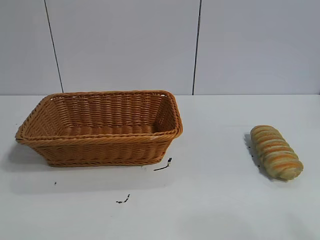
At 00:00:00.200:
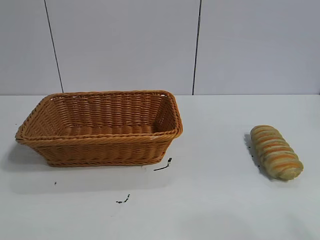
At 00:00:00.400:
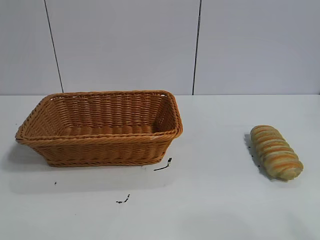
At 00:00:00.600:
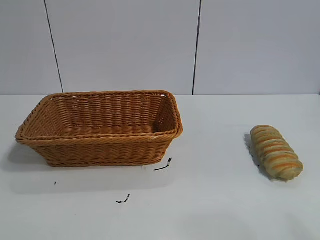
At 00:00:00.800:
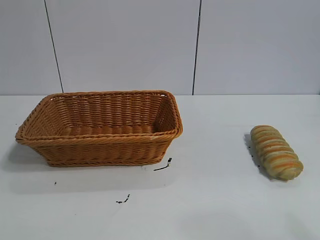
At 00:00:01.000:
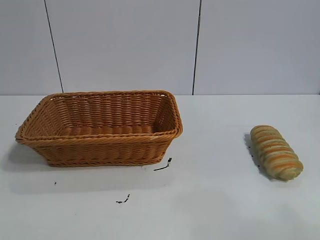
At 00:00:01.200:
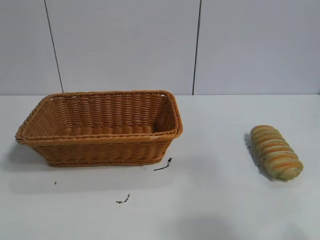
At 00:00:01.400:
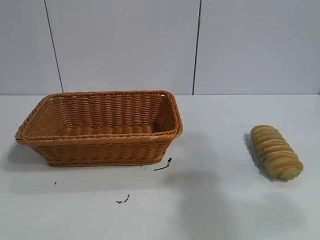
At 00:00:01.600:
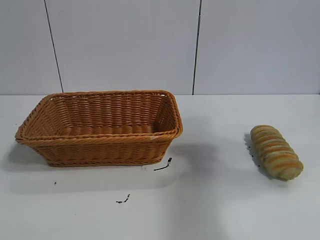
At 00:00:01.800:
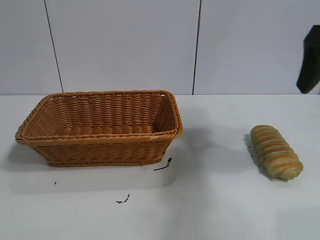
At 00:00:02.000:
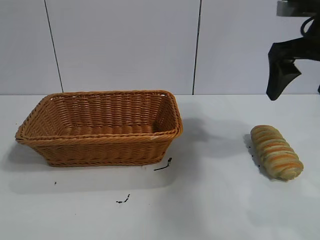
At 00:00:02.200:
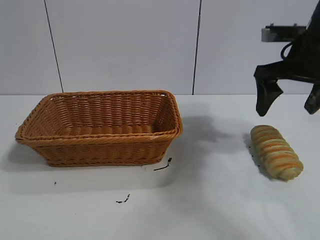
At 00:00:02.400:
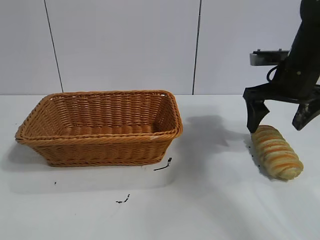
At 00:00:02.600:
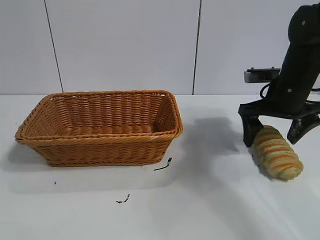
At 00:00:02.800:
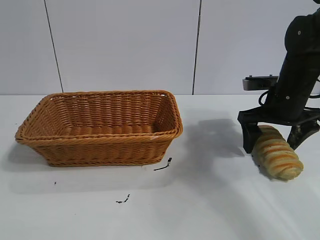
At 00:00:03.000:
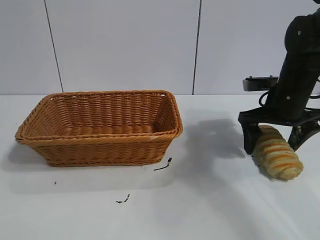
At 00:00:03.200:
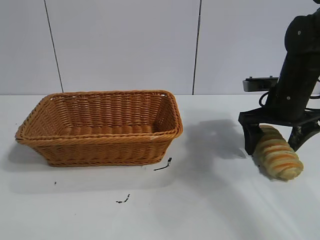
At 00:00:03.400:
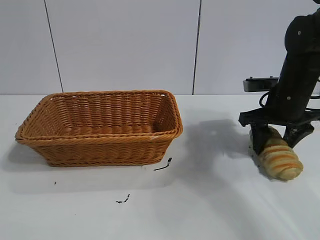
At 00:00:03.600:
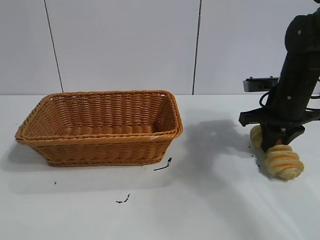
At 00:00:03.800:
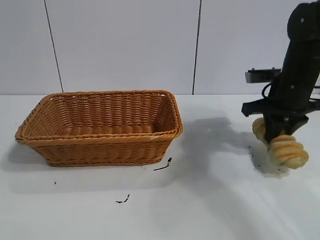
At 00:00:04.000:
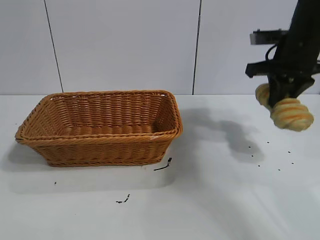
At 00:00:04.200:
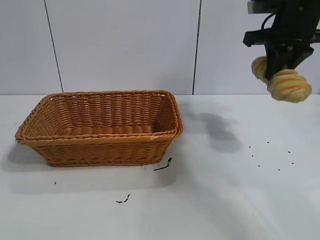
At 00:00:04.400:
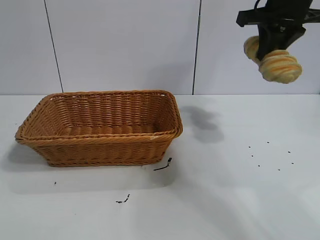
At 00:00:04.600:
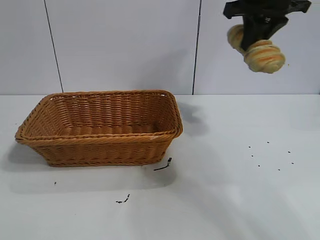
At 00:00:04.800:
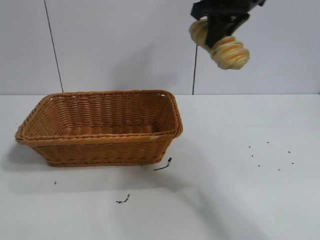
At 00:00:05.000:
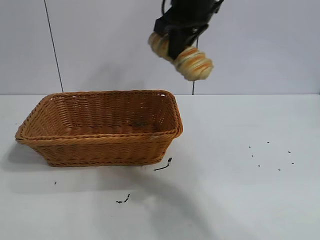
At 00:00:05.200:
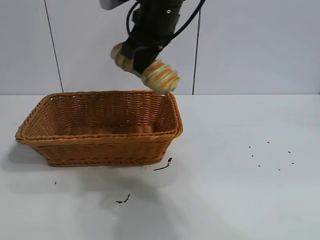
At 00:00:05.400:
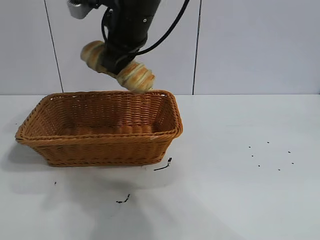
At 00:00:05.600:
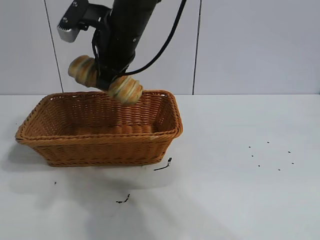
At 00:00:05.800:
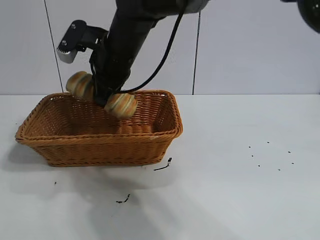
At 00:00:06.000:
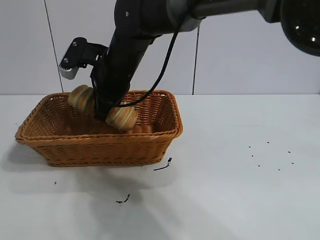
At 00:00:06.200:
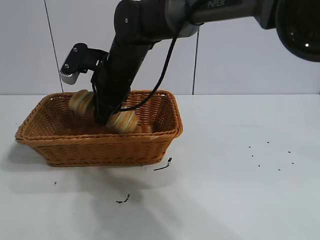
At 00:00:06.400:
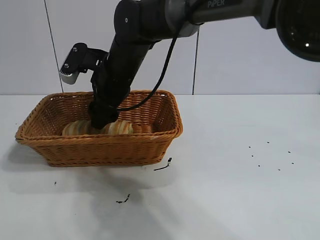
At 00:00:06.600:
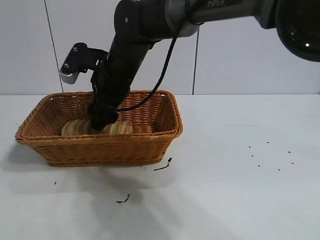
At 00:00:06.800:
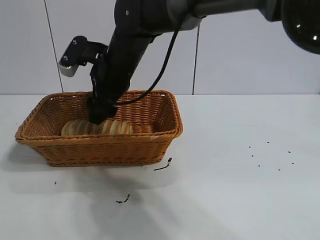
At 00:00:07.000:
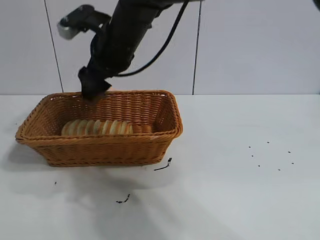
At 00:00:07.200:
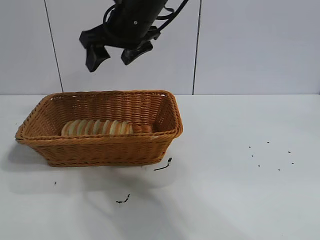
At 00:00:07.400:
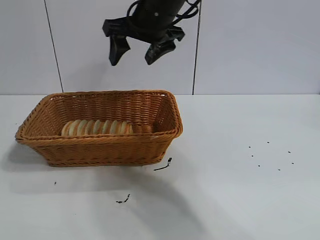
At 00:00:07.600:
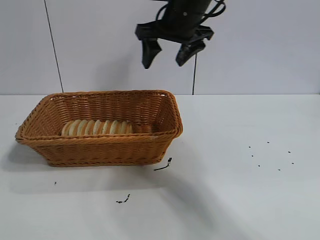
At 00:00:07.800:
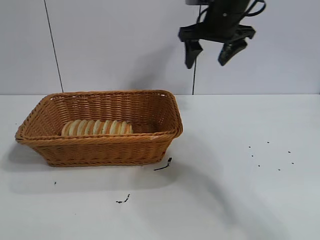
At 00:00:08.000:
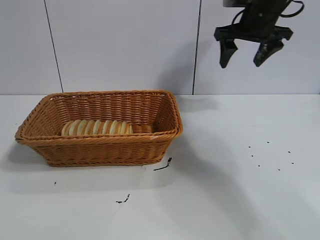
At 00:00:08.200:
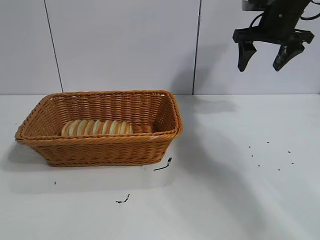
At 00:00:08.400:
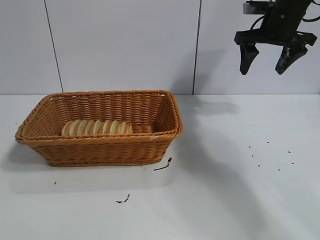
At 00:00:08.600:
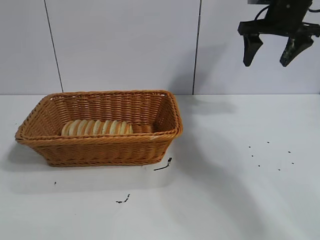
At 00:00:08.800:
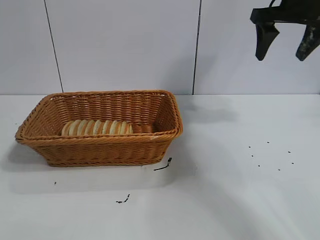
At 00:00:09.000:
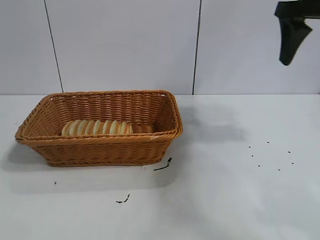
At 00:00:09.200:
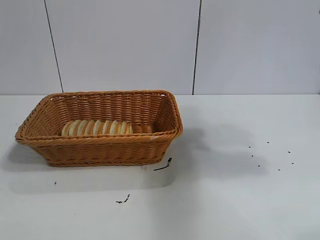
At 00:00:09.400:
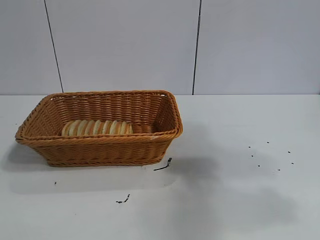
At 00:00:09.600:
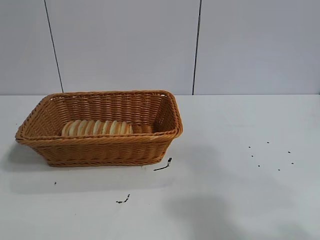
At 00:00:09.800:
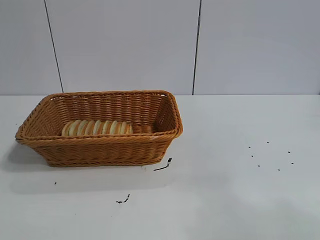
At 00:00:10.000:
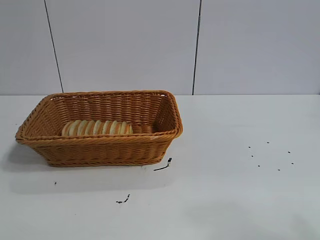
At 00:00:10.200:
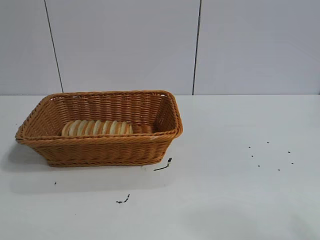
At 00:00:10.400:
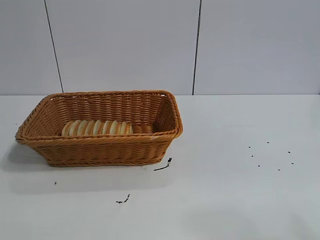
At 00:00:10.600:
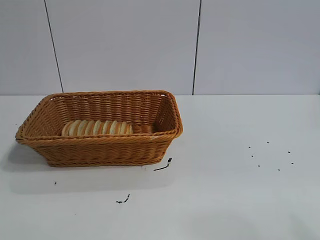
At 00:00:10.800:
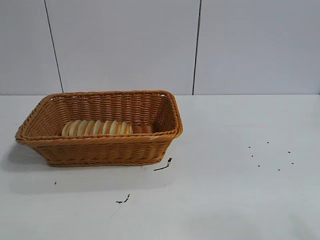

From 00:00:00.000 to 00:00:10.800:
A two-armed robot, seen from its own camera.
Task of the whole recording: pick up the long bread and put it into the basket.
Step, from 00:00:01.800 to 00:00:03.600: Grasp the long bread with right gripper.
Step, from 00:00:04.000 to 00:00:06.800: Place the long bread in the basket with right gripper.
